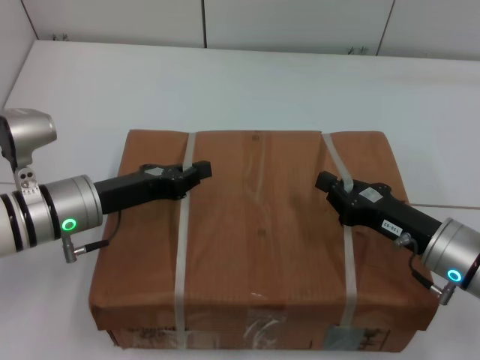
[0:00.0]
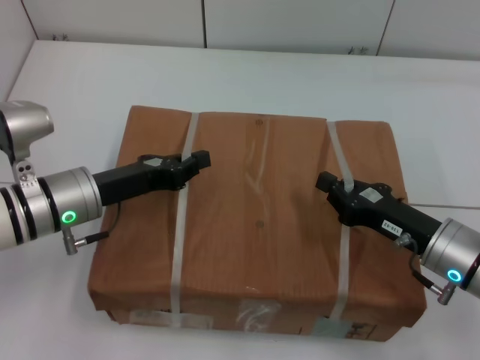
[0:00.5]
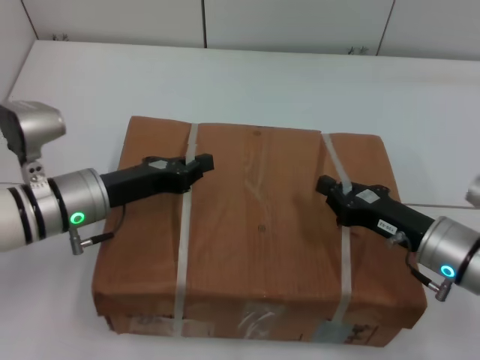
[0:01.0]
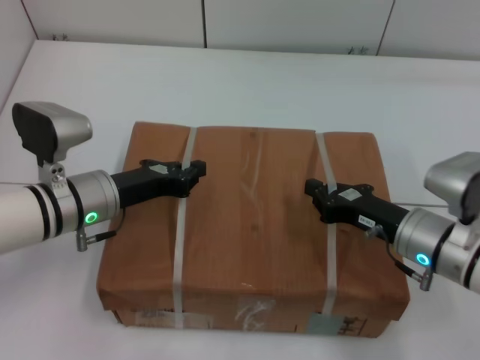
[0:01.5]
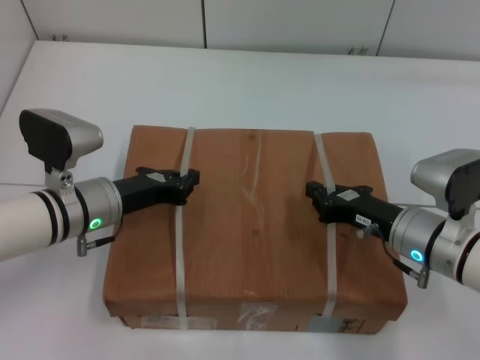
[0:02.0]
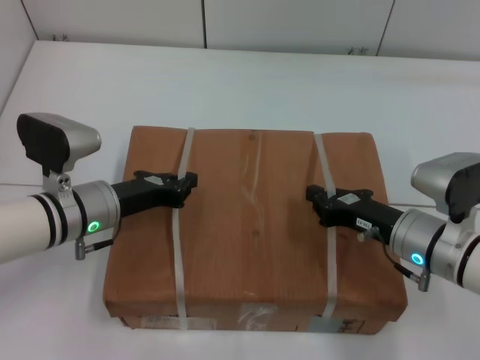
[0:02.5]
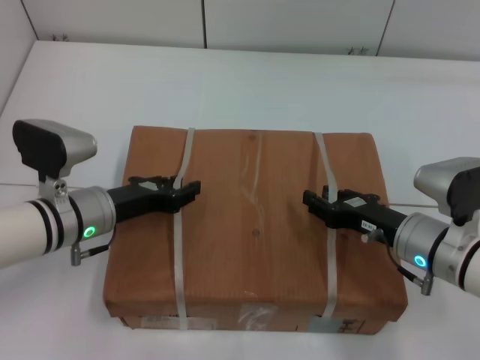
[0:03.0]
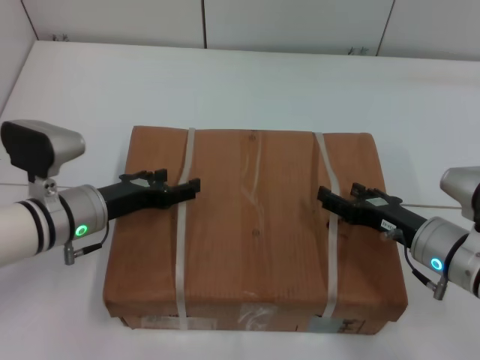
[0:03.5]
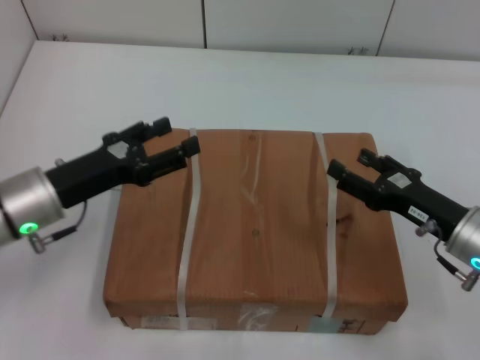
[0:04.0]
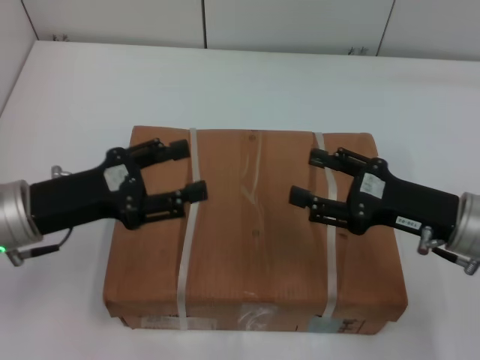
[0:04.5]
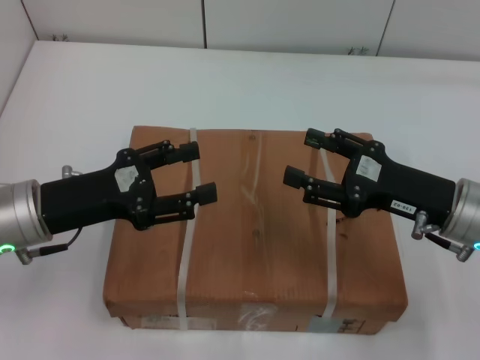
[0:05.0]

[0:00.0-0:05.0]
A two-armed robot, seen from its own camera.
Task of the whole recording: place the box on the table with both arms.
Step, 0:00.0 to 0:01.5: Place the box on the table with left gripper.
Step, 0:00.0 to 0:01.5: Place the box on the table with right gripper.
Step, 0:02.0 to 0:02.5: Loosen the box on the table with left gripper.
Step, 0:02.0 to 0:02.5: Loosen the box on the table with right gripper.
0:02.5 to 0:05.0: The right gripper heads upward, covering about 5 cm, and opens up, while the left gripper heads upward and backward, covering roughly 10 cm, and opens.

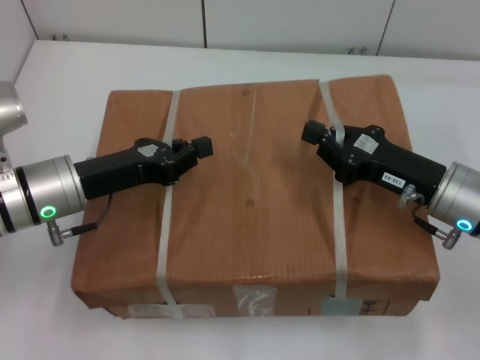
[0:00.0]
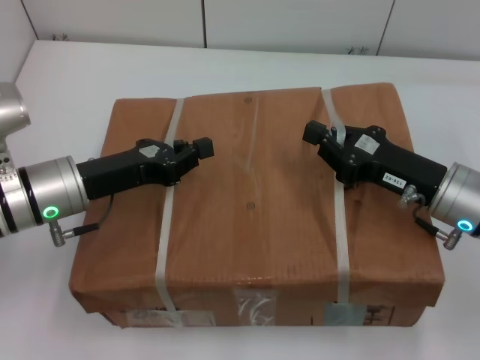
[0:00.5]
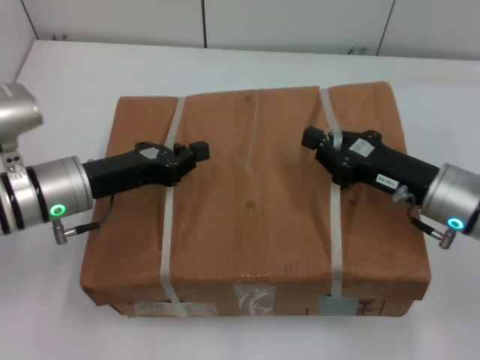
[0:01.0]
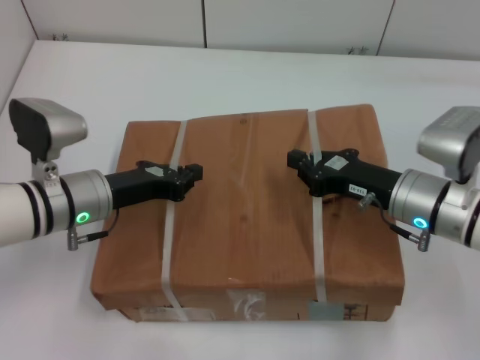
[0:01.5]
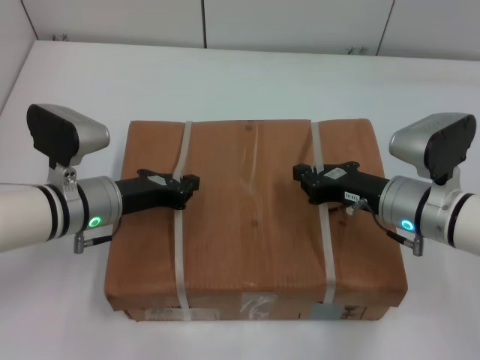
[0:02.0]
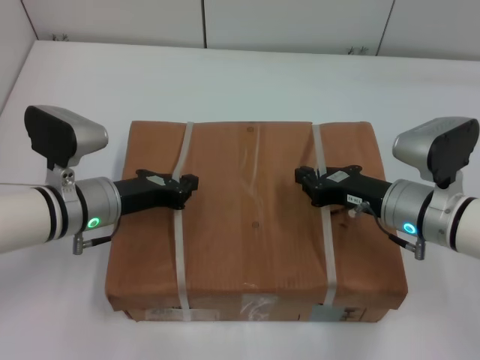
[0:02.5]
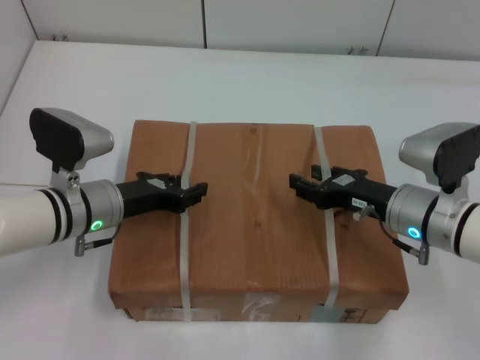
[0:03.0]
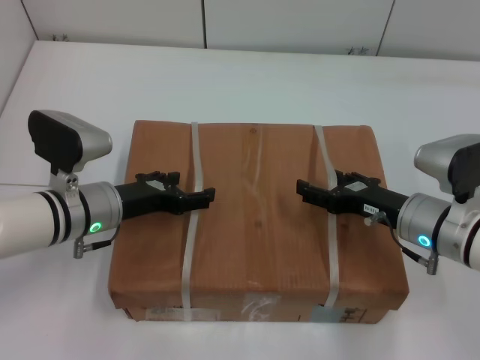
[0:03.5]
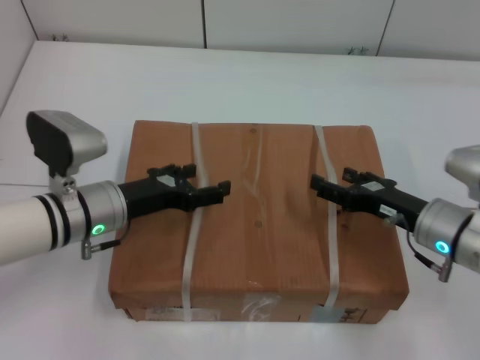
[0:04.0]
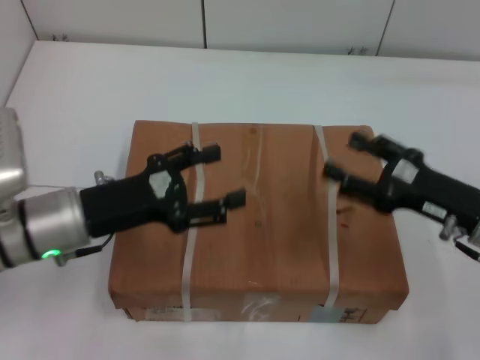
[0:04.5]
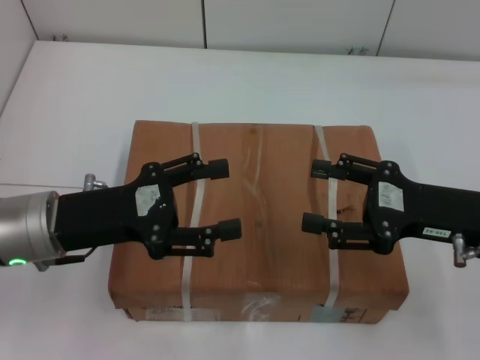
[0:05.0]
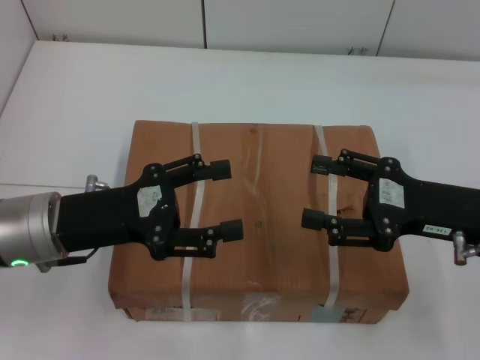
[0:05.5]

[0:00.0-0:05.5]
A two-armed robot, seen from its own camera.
Task of the whole recording: place the box on the table with both arms.
Step, 0:00.0 to 0:02.5: Place the box on the table with left gripper.
Step, 0:00.0 to 0:02.5: Place the box on the table with right gripper.
0:00.0 to 0:02.0: The left gripper changes place by roughly 5 cm; the right gripper changes place by about 5 cm.
0:02.0 to 0:03.5: The left gripper opens. Meanwhile the right gripper opens its fingers.
0:03.5 to 0:05.5: The right gripper is displaced upward by about 10 cm. Meanwhile the left gripper goes approximately 10 cm upward and backward.
